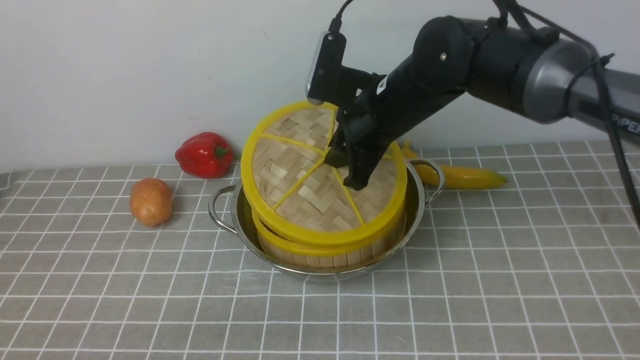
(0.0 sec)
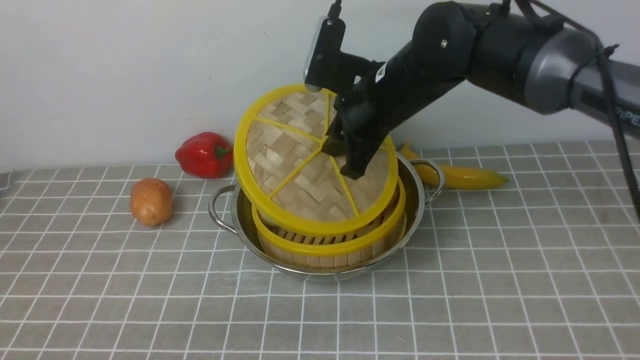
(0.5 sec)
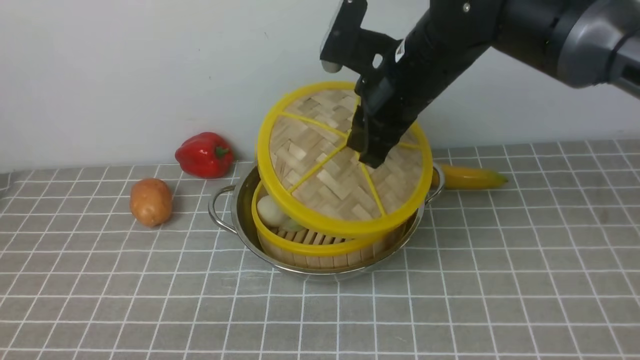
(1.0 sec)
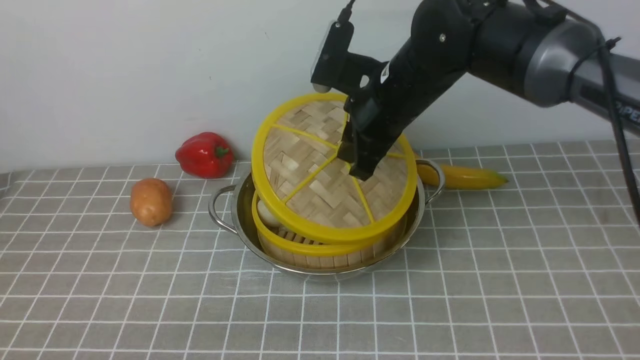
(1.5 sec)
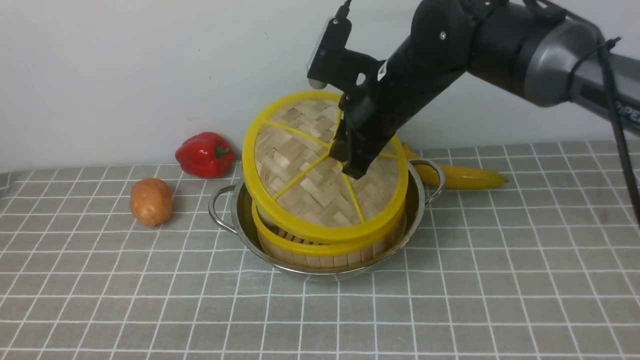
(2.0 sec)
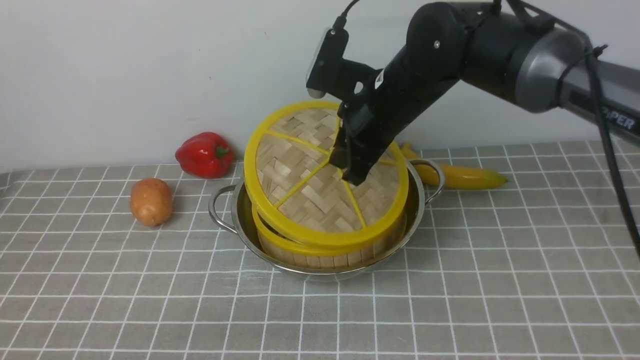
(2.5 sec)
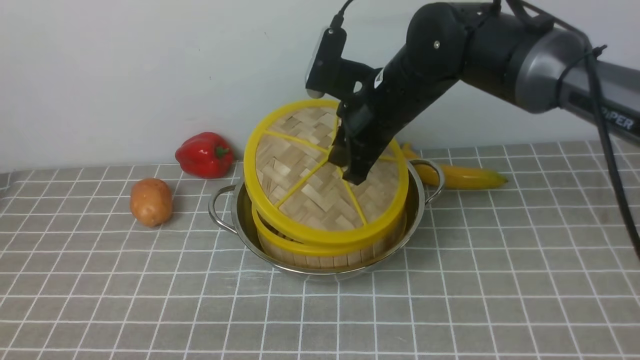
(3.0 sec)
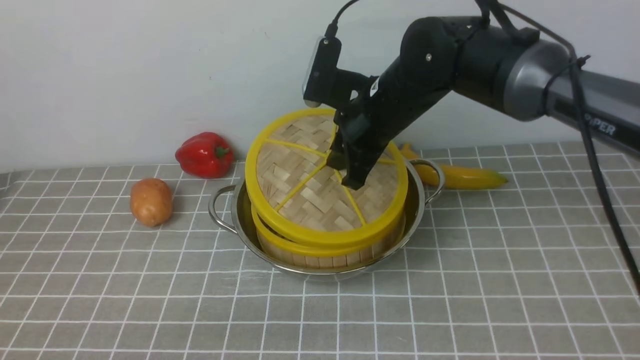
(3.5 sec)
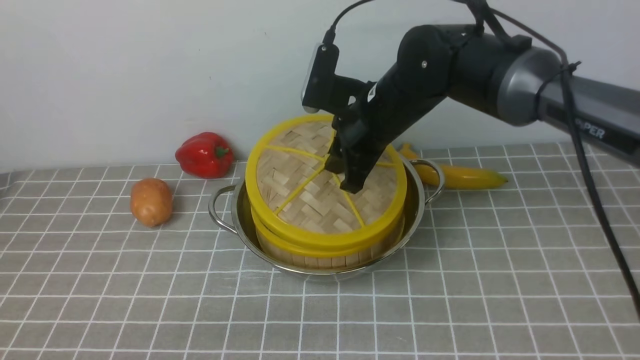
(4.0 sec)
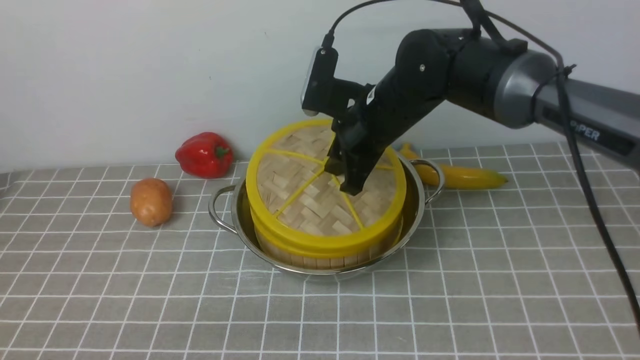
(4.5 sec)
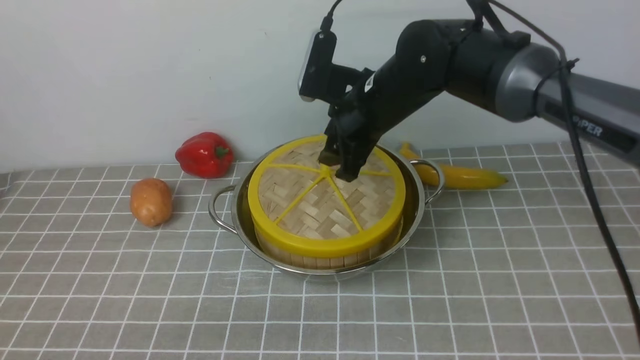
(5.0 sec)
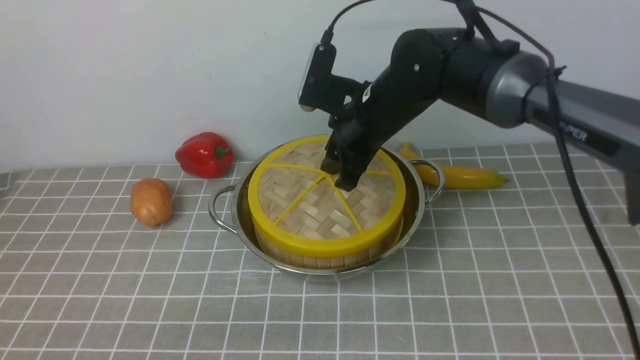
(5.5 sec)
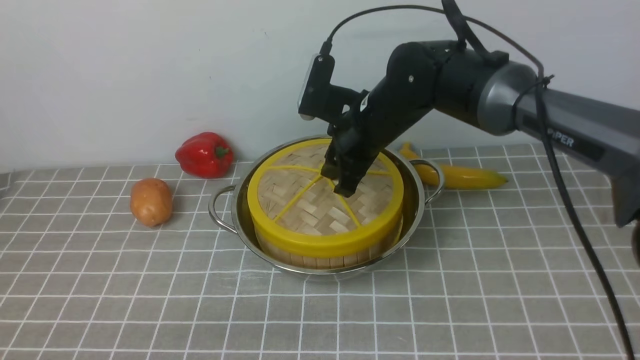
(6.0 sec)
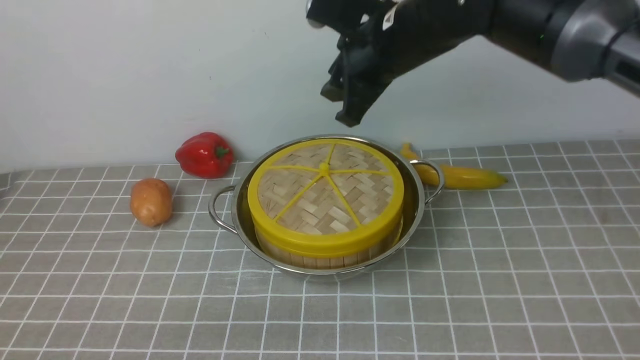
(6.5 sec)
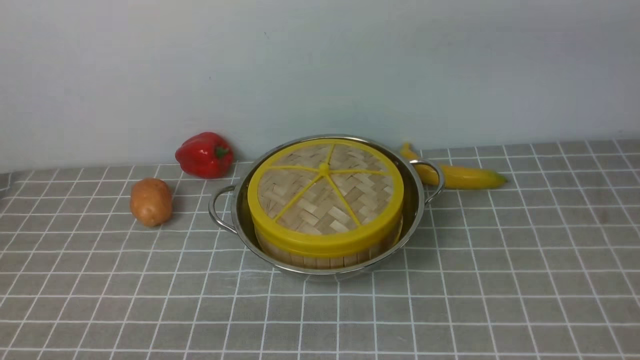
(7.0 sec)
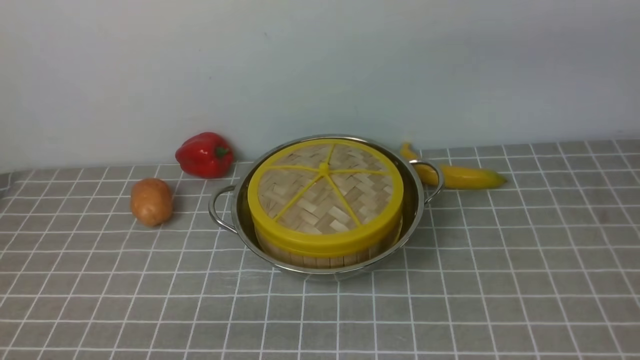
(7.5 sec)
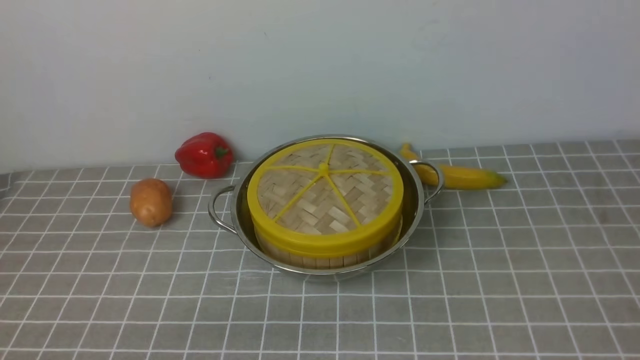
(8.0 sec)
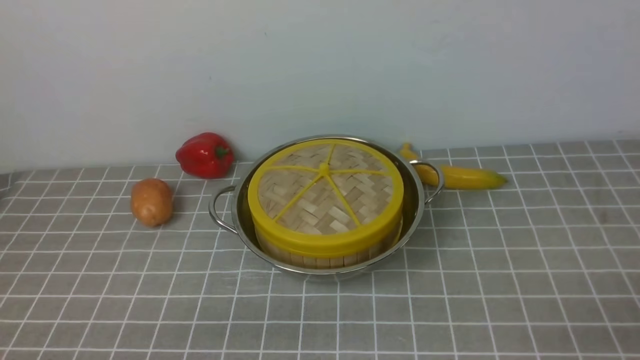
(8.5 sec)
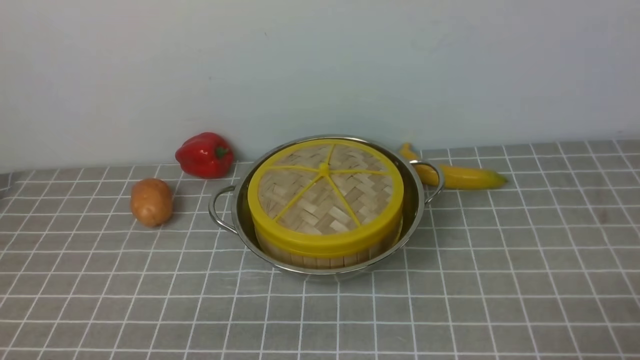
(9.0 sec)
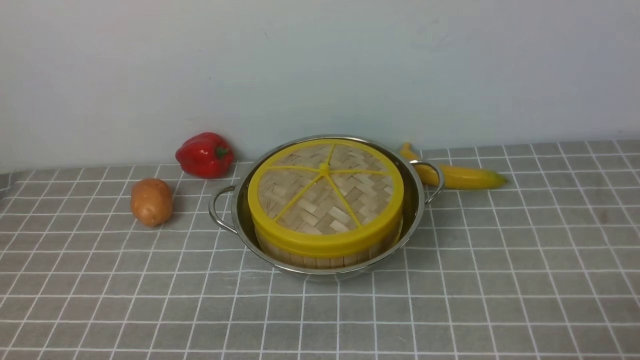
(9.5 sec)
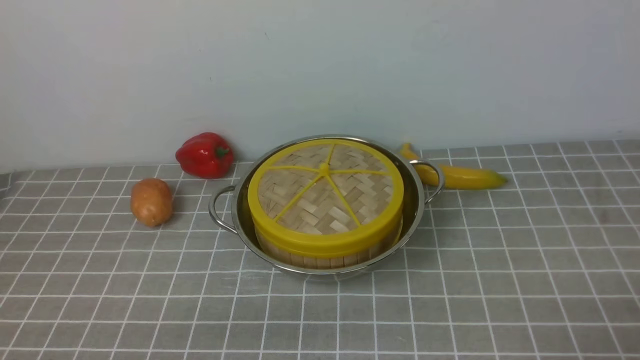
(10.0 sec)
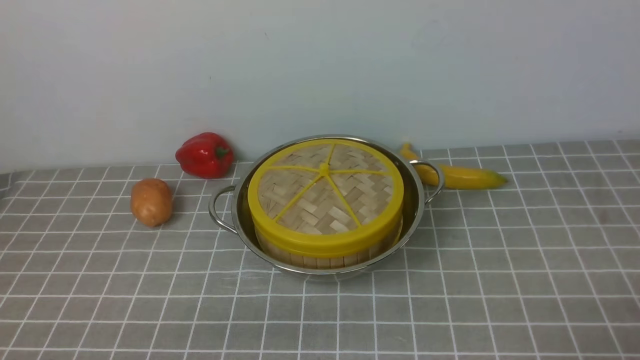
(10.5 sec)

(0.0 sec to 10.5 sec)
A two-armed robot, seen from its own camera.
Task of the whole recording: place the steamer in the pot on the grey tablecloth, and put the lid on the steamer.
Step, 0.0 sec - 5.0 sec: use the right arm to place the steamer lid on the steamer.
0.0 sec - 4.0 sec: The grippers move only a little.
4.0 sec - 6.5 sec: The right gripper travels upward by about 10 cm, and opens, then closes again.
6.5 sec - 8.5 sec: The right gripper goes approximately 40 cm backward, to the right and downward.

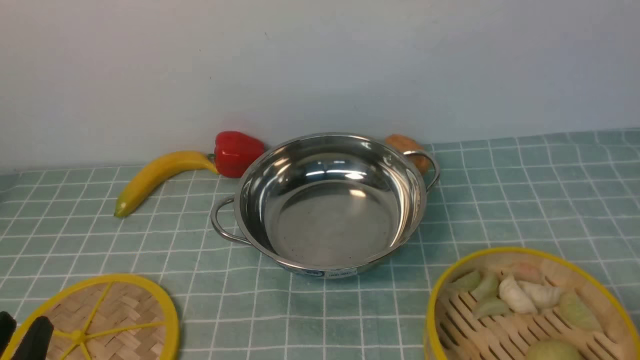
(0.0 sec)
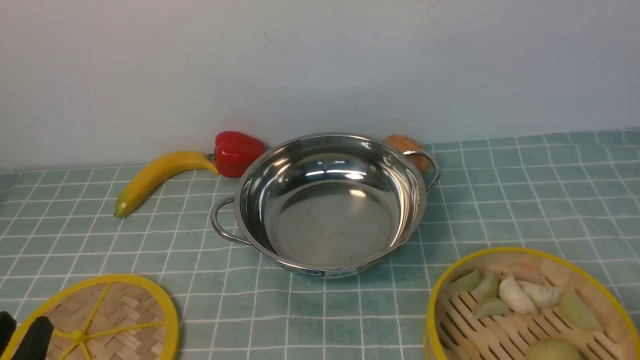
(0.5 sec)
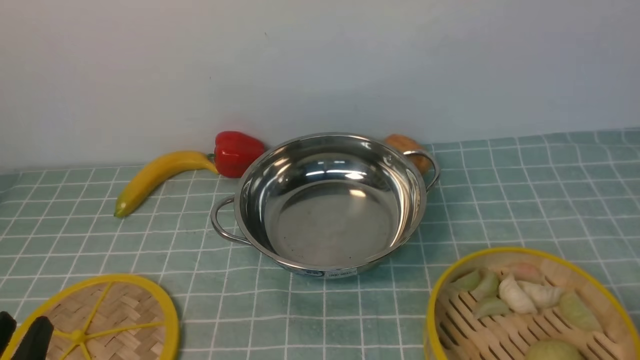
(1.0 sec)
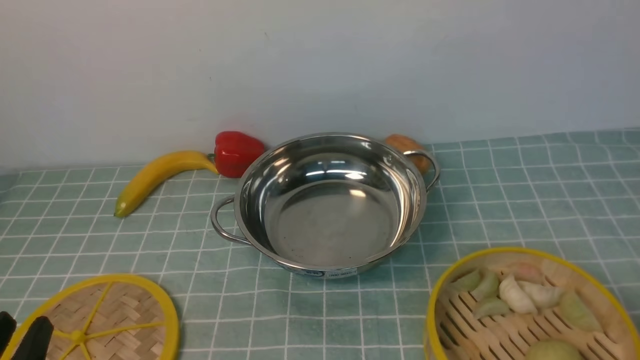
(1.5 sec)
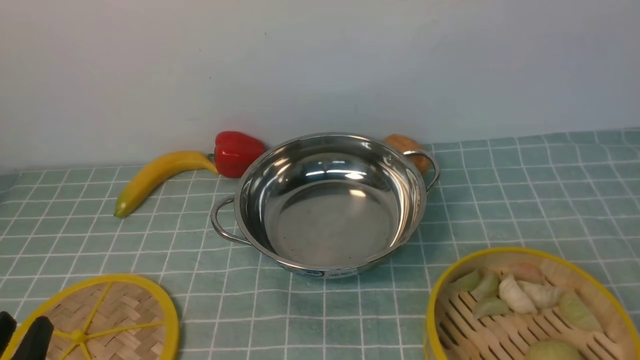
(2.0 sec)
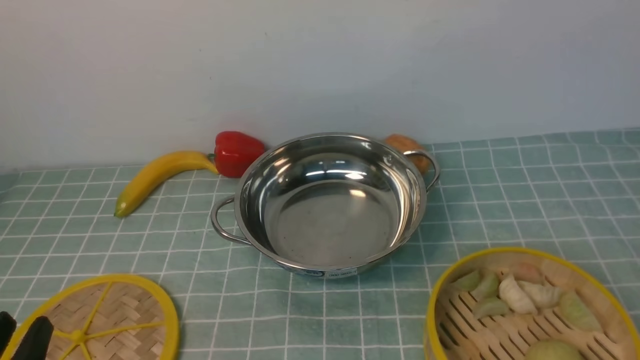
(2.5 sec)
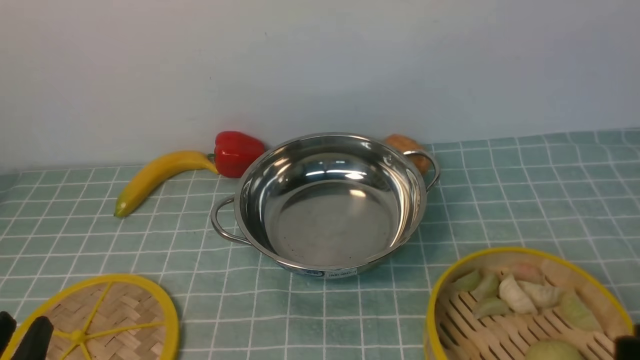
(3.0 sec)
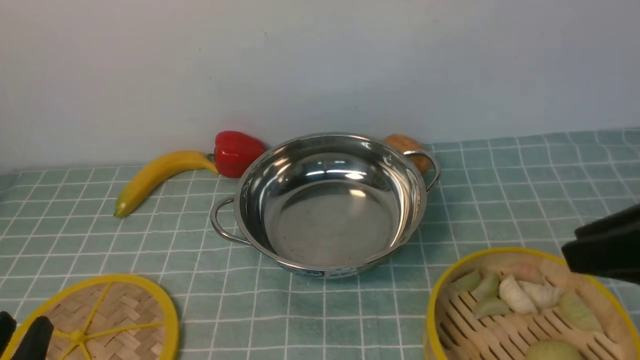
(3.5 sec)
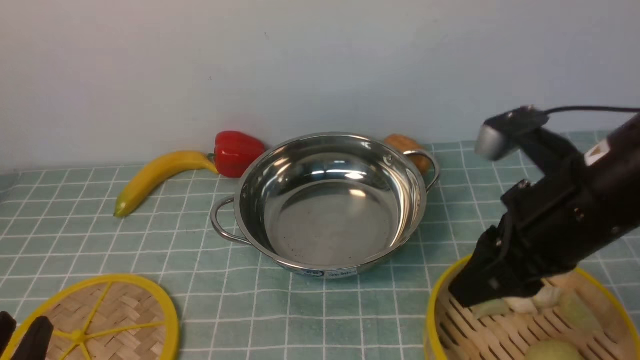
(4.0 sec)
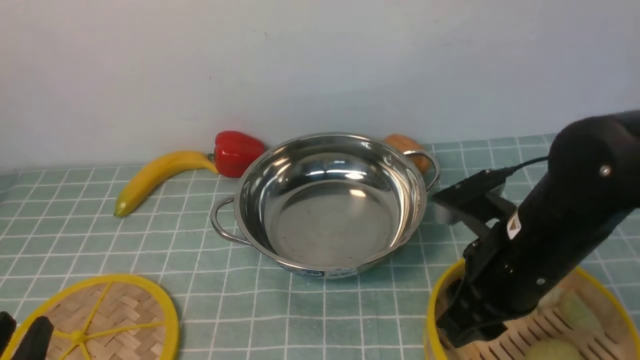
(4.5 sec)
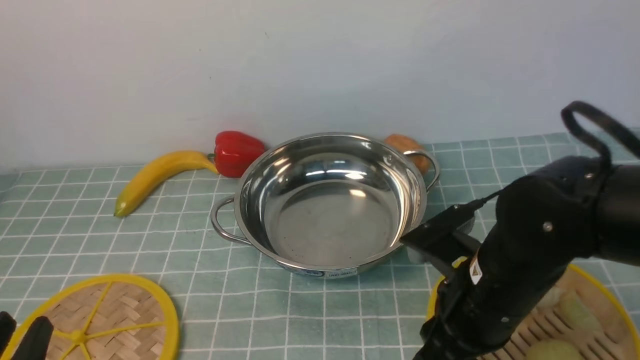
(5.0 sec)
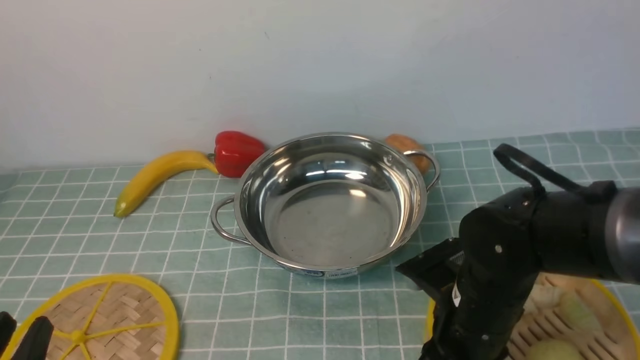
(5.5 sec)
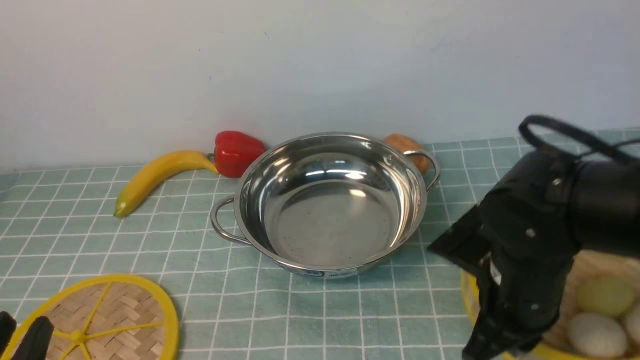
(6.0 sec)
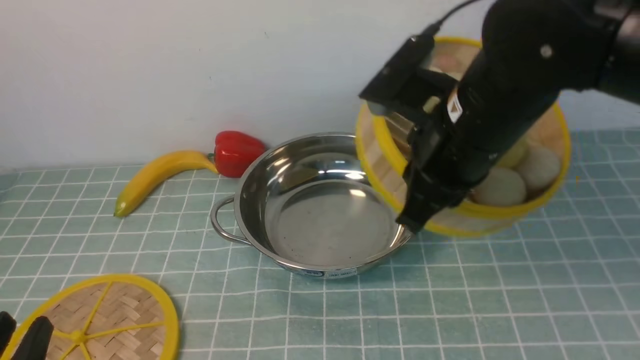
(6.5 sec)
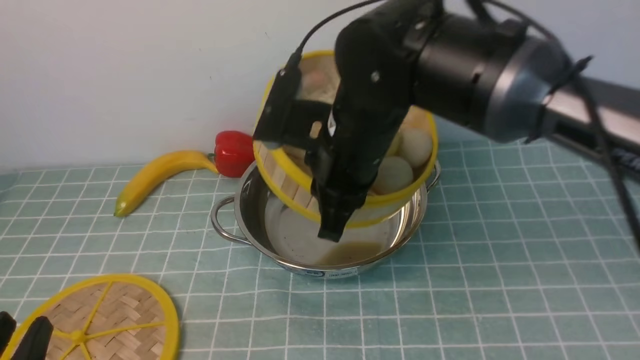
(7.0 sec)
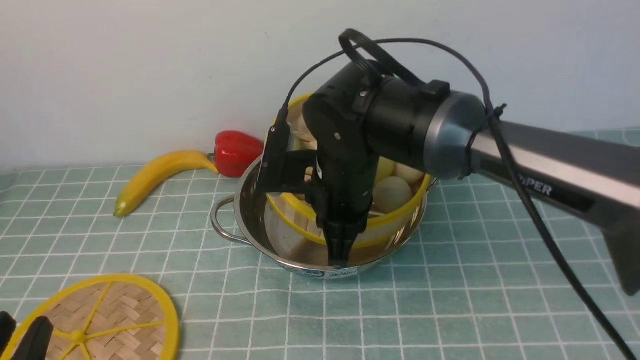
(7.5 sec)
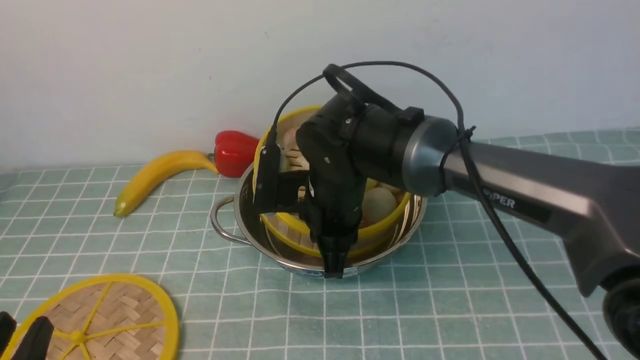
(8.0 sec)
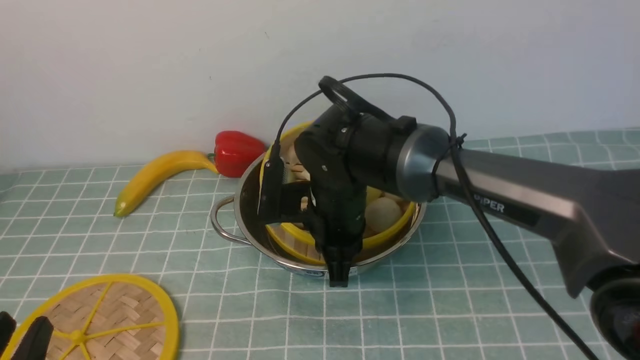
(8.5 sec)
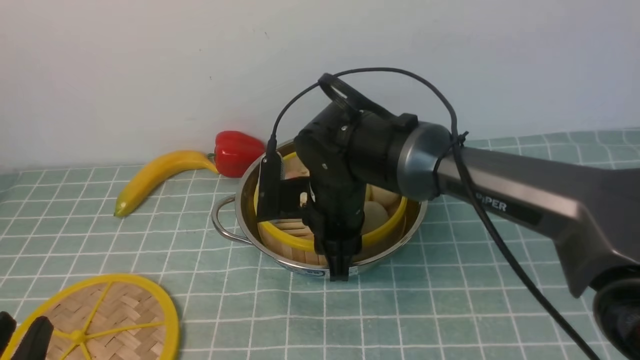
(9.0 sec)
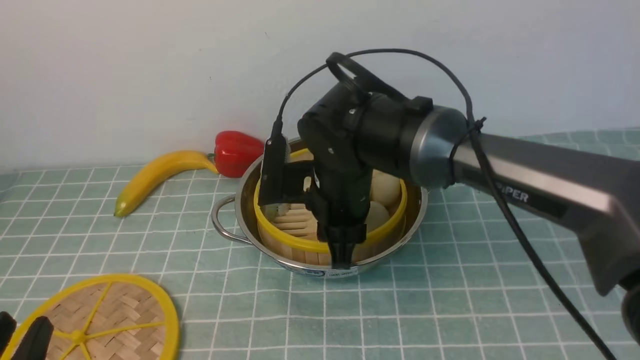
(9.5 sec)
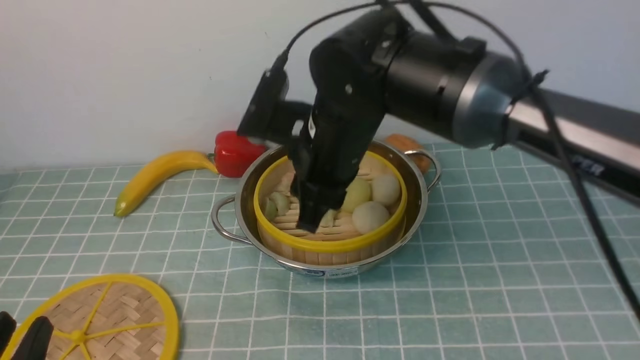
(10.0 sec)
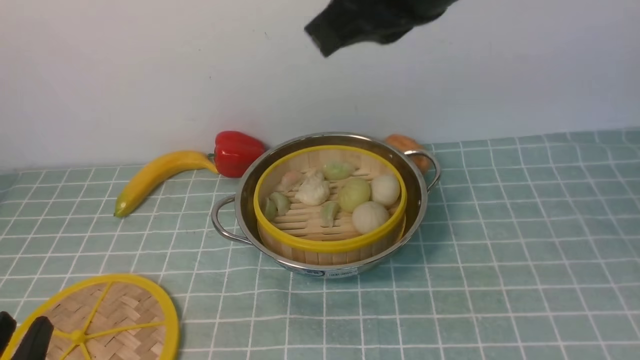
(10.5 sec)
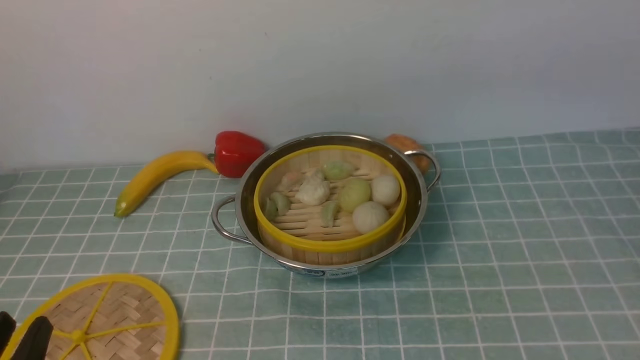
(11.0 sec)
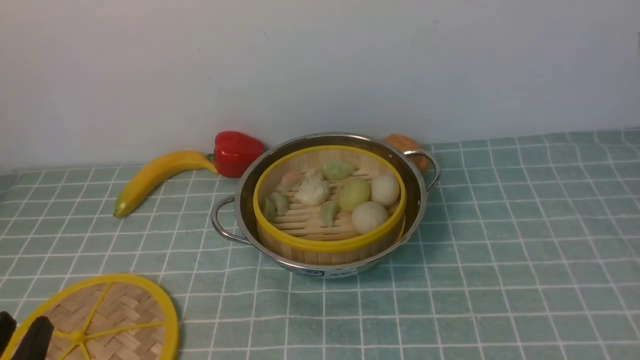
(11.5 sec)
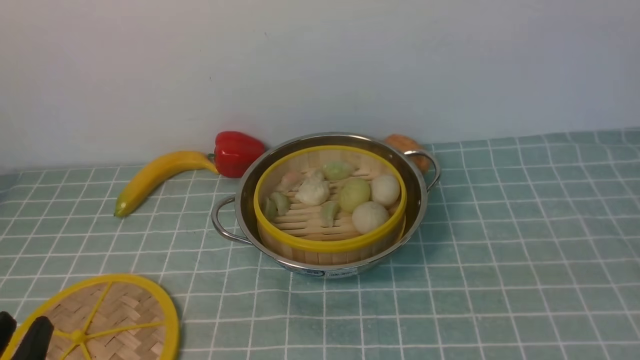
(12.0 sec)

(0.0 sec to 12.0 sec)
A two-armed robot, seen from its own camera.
Task of the whole recording: place the steamer in the pot on the blue tablecloth, and put the lid on the steamer.
Step, 0.0 sec - 6.0 sec: use the right arm to lift the steamer closest to it.
Step, 6.5 sec - 9.5 sec: use the right arm to put the steamer into the iron steamer pot in the middle.
2.0 sec - 4.0 sec: The right gripper is displaced forward and to the left by roughly 25 cm.
4.0 sec - 6.0 sec: The right gripper moves downward and to the left, some 15 cm, and closes up.
6.0 sec - 8.0 sec: The right gripper goes some 20 cm to the left and forward.
8.0 sec - 10.0 sec: The right gripper shifts some 5 cm upward, and opens its fingers.
10.0 sec - 12.0 sec: The right gripper shifts about 40 cm to the right and backward, and closes up.
